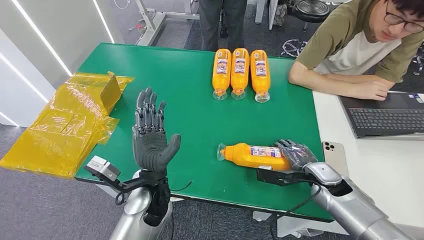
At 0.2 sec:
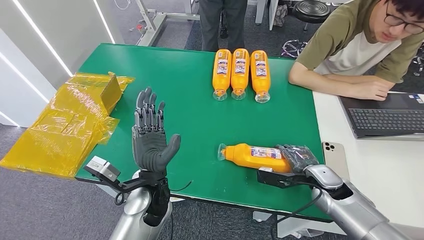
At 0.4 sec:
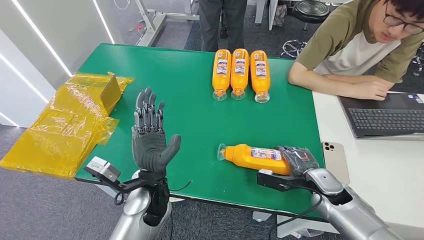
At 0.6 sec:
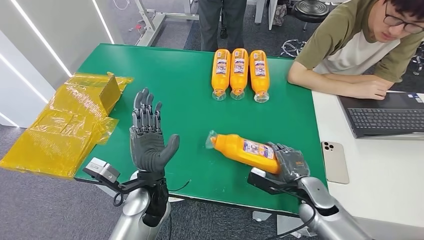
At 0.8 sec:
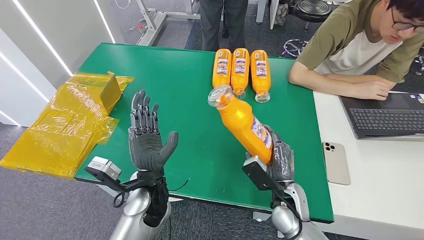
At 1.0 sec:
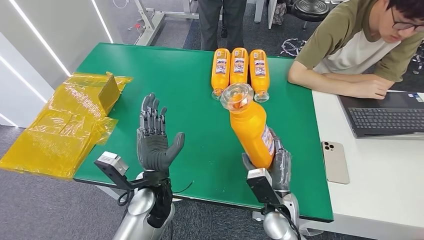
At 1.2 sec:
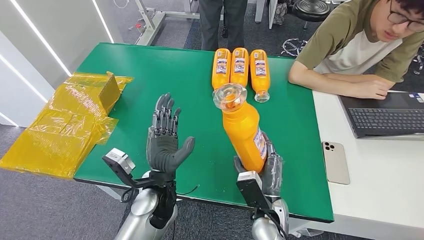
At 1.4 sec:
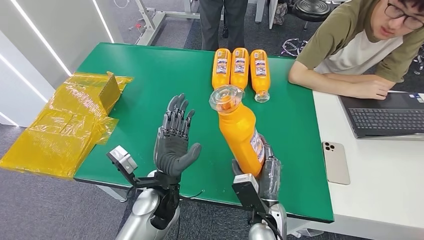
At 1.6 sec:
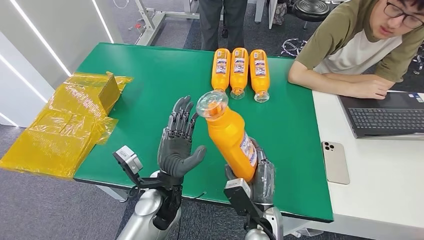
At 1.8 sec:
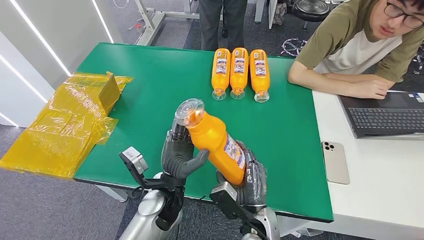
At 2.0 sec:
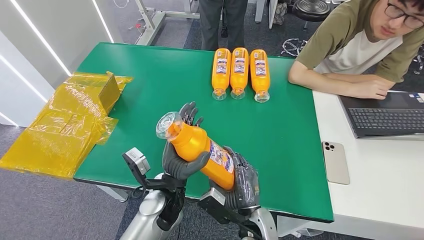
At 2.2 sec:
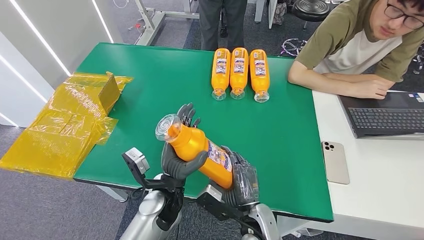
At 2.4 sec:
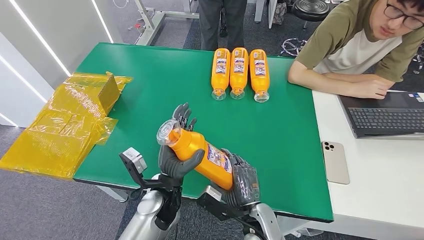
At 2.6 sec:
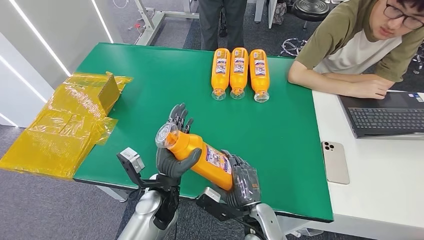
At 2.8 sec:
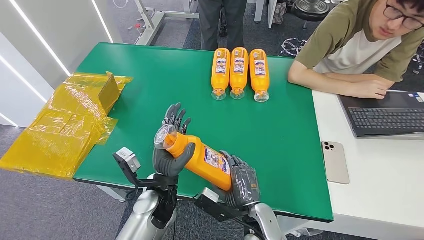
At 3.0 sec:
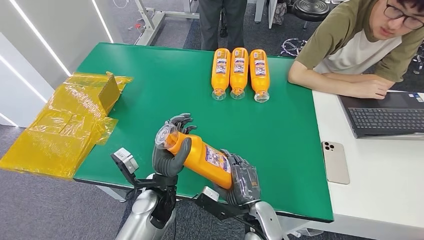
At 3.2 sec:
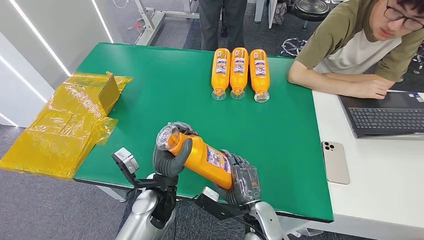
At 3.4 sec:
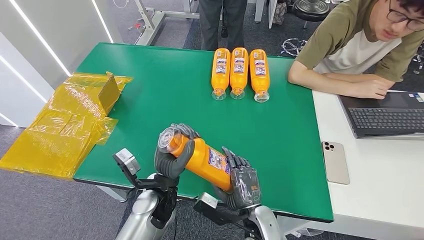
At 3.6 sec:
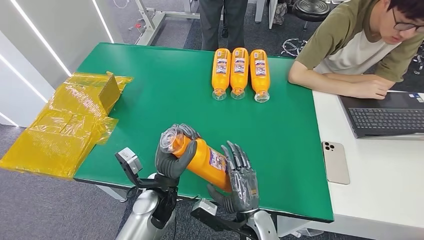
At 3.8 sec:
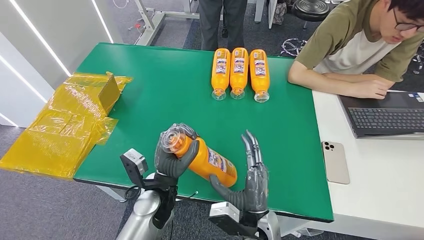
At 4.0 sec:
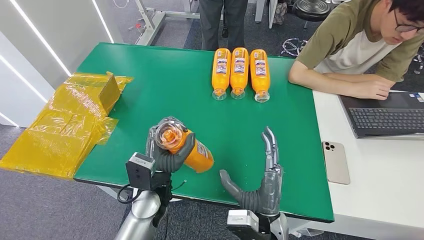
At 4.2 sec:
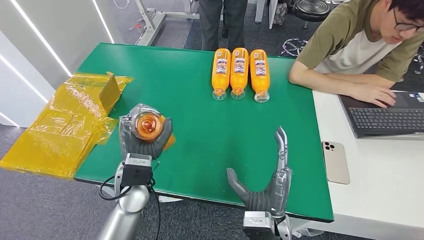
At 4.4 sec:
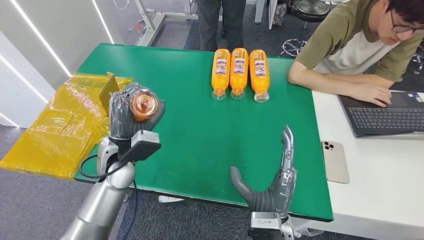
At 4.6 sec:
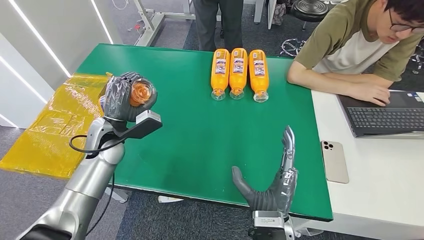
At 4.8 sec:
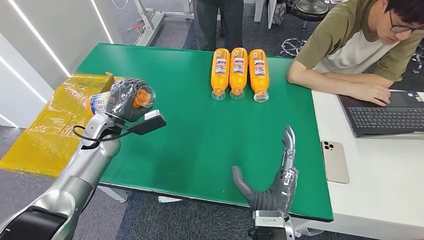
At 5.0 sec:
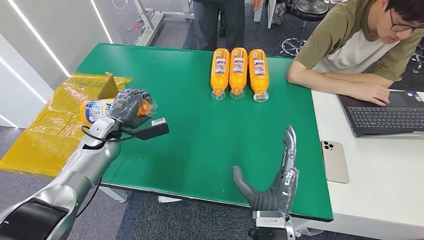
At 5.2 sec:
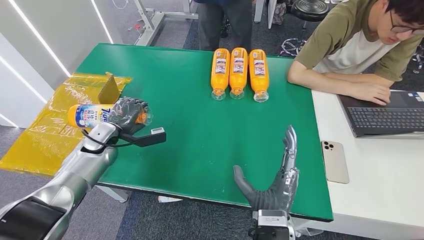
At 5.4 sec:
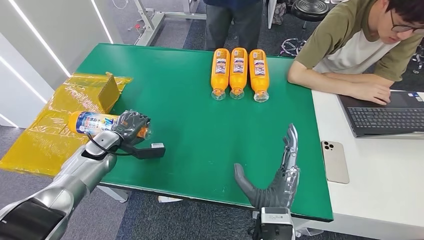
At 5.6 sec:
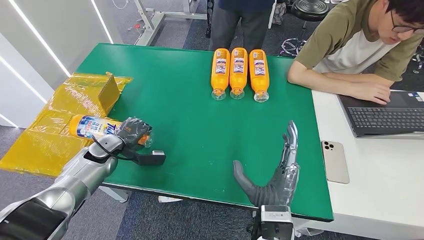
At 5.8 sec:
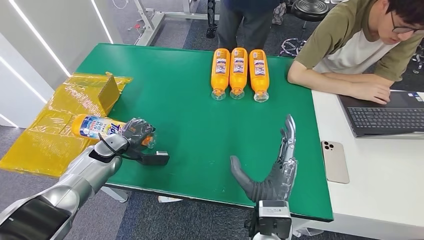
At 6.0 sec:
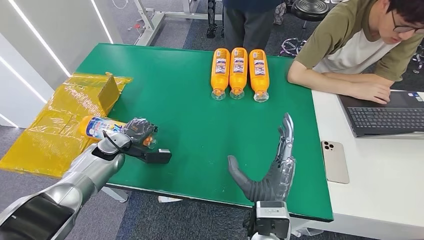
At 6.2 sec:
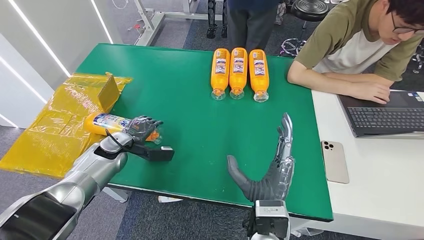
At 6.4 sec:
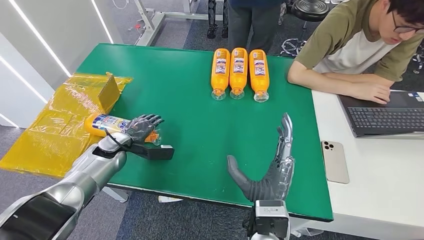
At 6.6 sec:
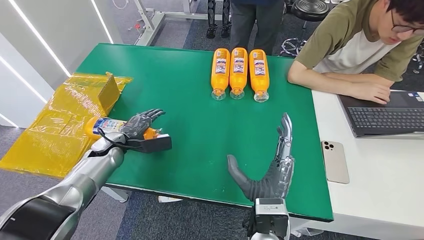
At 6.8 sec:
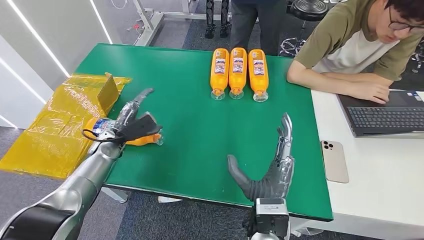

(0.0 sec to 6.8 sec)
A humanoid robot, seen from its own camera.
Step, 0.0 sec - 1.6 sec: Pick up the bottle from the table.
Step, 1.8 sec - 6.6 sec: Turn the bottle to the front side.
2.8 sec - 4.0 sec: The right hand shifts by approximately 5 cm.
4.0 sec - 5.4 sec: The left hand heads to the left and forward, covering roughly 25 cm.
